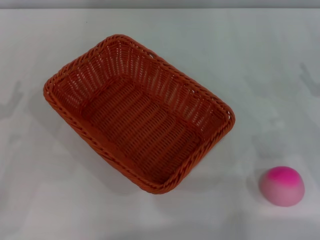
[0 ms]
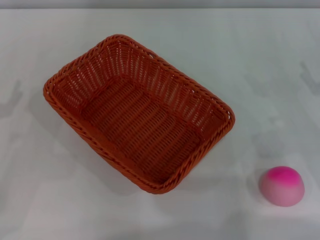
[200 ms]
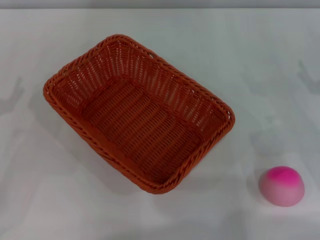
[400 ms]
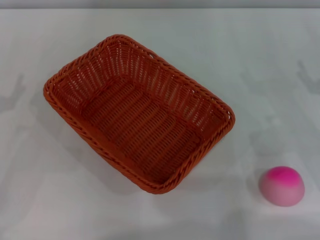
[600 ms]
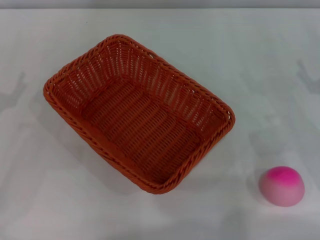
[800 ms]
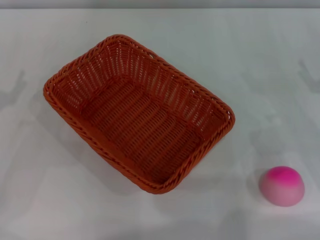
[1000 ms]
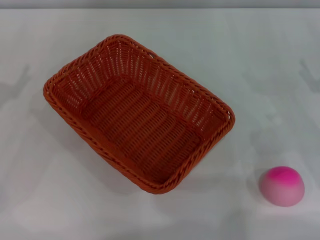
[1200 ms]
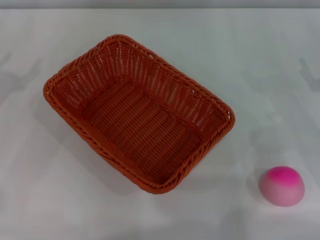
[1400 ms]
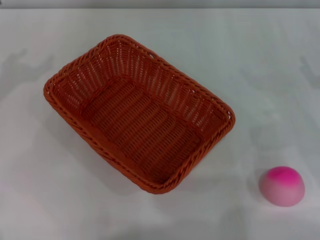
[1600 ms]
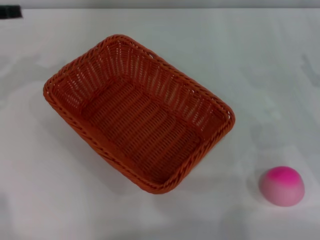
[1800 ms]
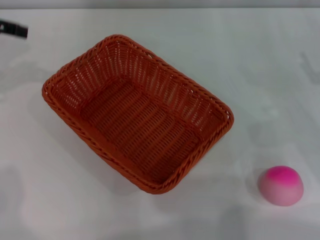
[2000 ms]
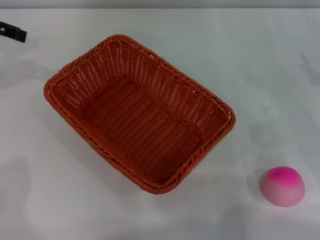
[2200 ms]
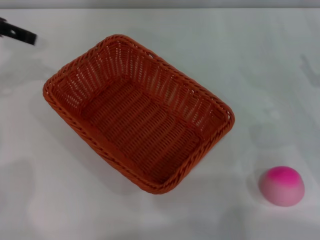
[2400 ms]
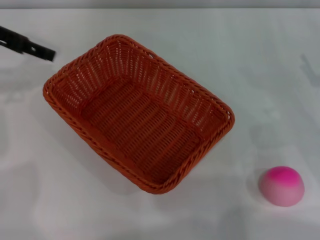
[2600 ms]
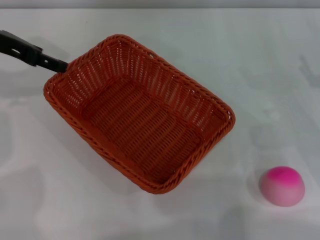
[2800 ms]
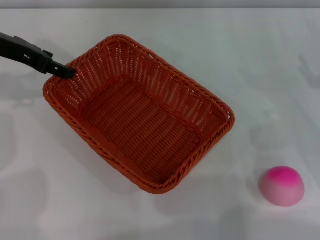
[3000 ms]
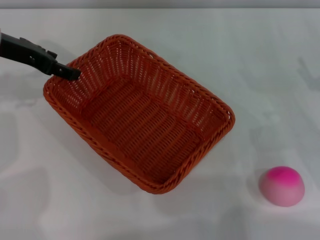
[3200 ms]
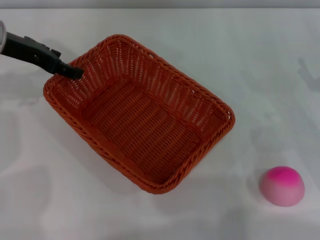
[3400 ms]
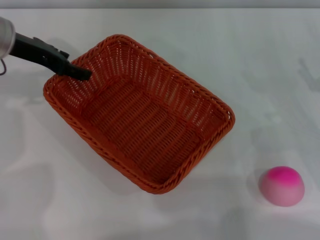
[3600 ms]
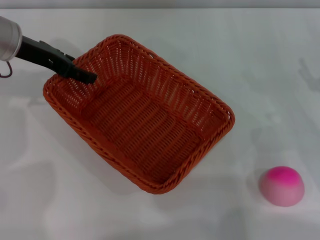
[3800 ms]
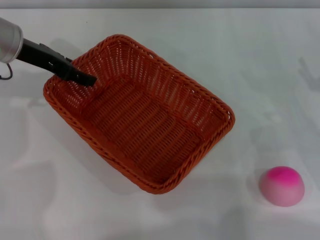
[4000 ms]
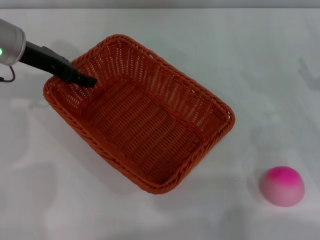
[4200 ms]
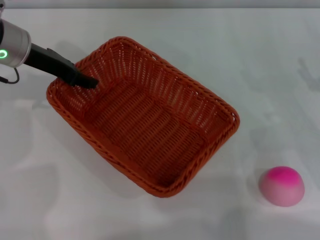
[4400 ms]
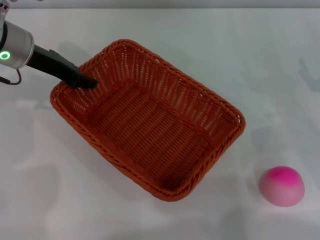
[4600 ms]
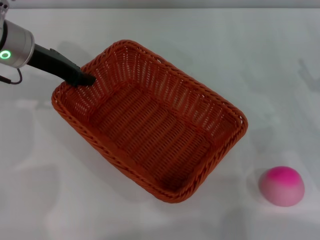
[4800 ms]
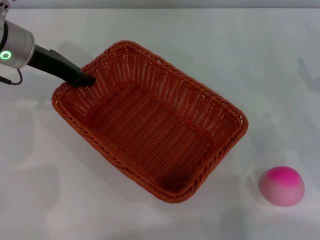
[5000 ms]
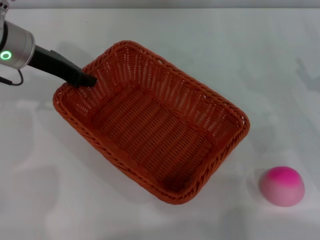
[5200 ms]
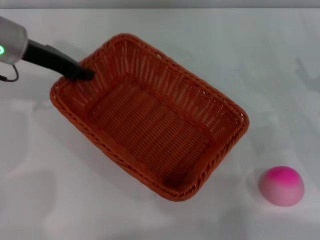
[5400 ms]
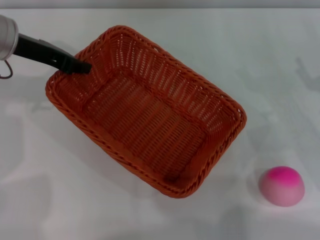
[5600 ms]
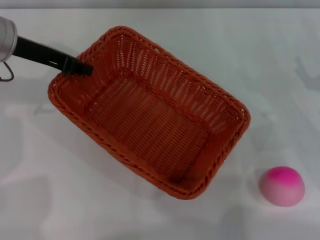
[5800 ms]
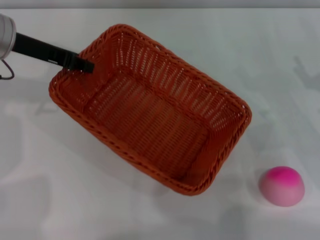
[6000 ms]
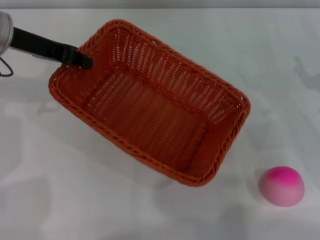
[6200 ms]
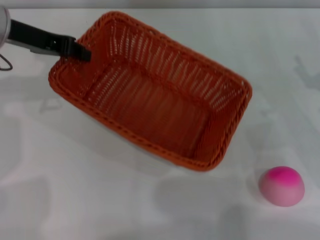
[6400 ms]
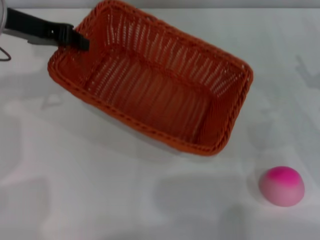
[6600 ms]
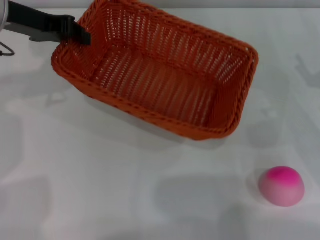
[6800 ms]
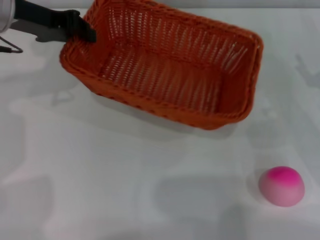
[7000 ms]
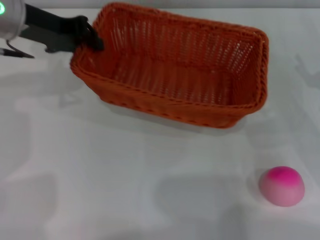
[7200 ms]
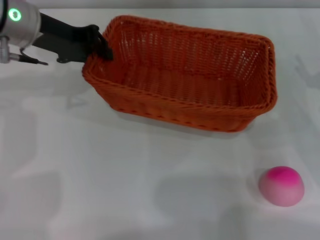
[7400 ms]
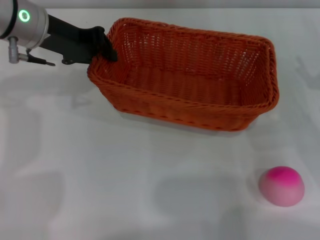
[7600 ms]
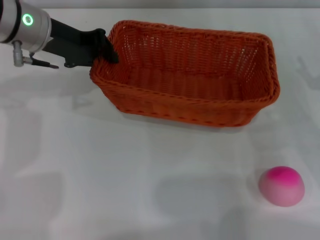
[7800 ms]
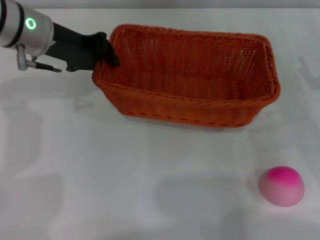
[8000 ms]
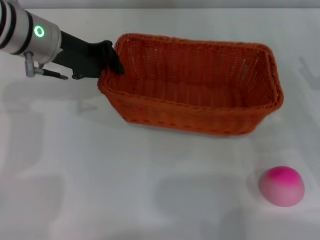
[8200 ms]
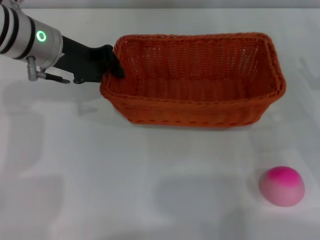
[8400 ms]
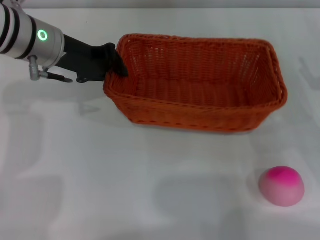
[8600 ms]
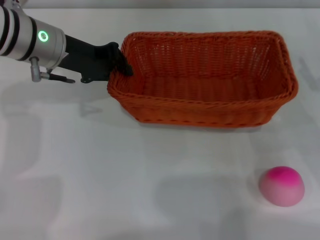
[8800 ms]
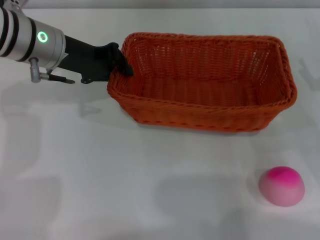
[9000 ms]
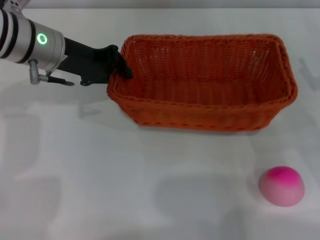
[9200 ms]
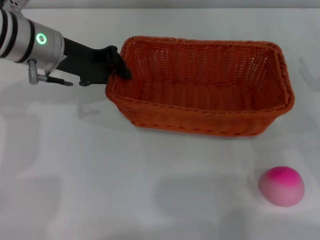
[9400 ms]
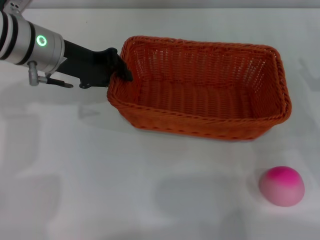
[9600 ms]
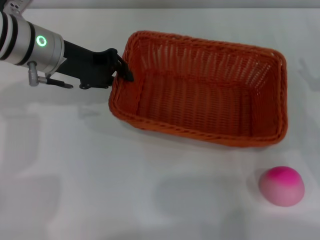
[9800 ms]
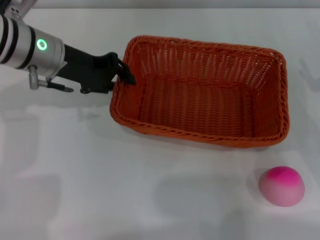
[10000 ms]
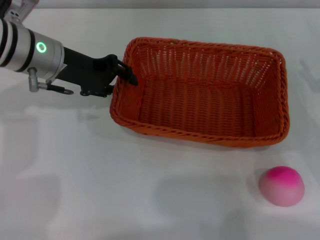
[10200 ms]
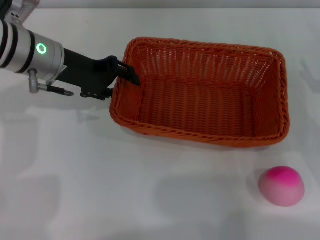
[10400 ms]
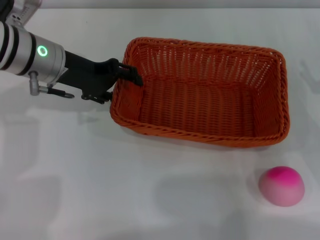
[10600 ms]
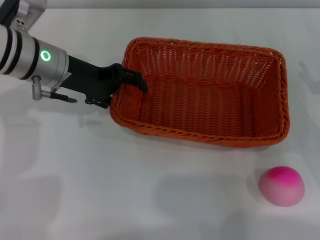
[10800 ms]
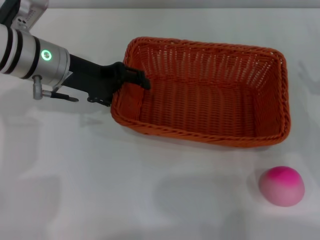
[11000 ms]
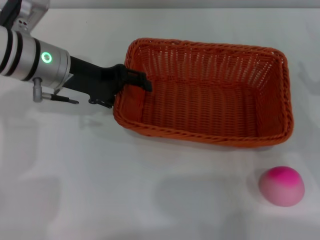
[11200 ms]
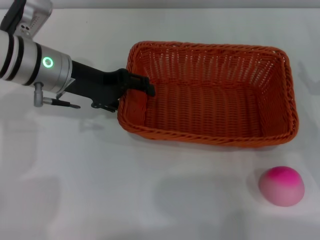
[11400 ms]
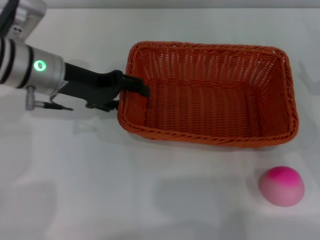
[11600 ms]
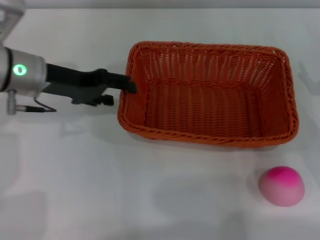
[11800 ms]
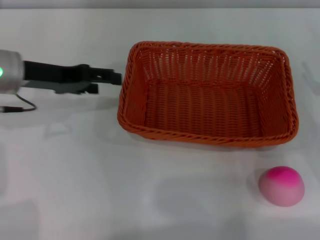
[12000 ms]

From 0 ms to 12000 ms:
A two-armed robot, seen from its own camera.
Step, from 0 ms to 6000 ms: Pick up the light basket with the left gripper.
From 1600 ms to 3000 ms: The left gripper goes approximately 10 cm to the right and forward.
From 3000 ms to 4400 ms: The grippers move only a little.
From 4400 ms to 6000 ms: The left gripper closes its fingers.
From 7600 ms to 10400 ms: There are only small adjustments of the grippers.
From 10400 ms to 12000 ms: The left gripper is displaced to the left by roughly 5 cm, and opens.

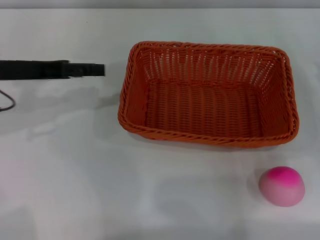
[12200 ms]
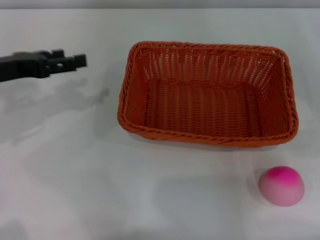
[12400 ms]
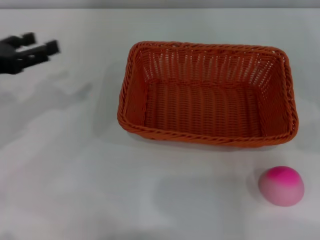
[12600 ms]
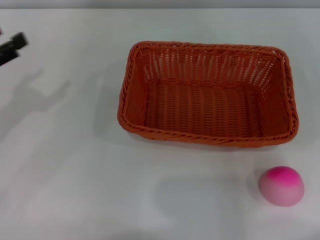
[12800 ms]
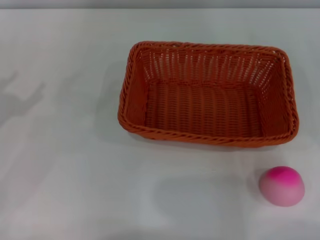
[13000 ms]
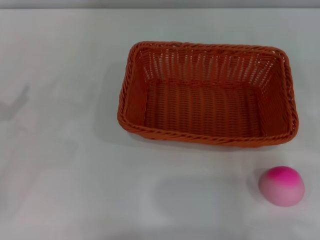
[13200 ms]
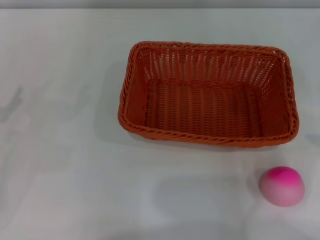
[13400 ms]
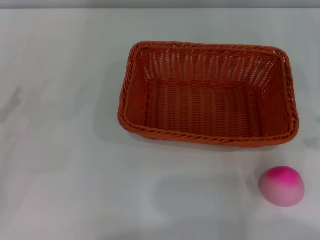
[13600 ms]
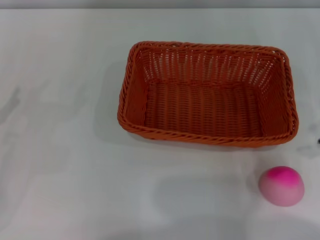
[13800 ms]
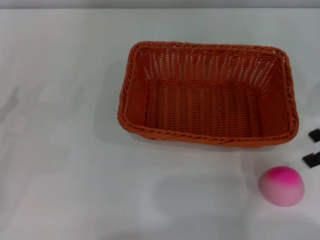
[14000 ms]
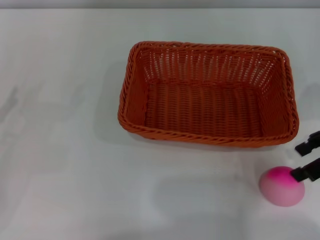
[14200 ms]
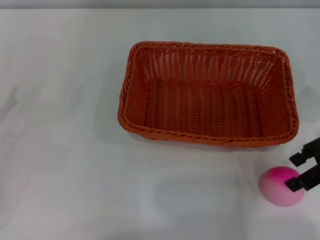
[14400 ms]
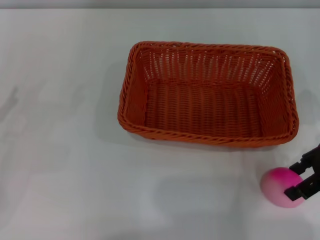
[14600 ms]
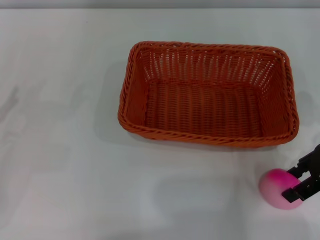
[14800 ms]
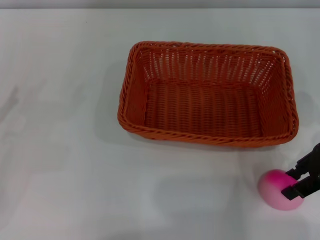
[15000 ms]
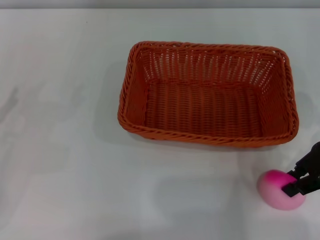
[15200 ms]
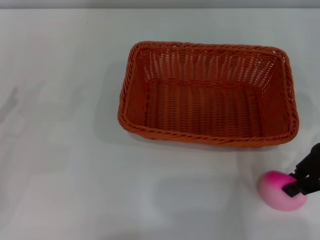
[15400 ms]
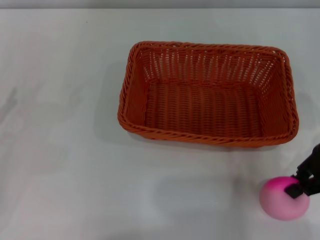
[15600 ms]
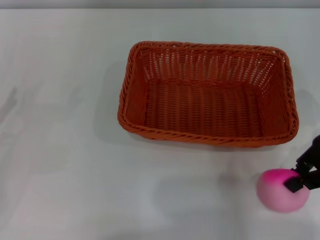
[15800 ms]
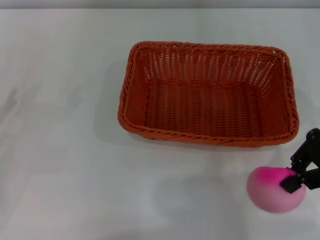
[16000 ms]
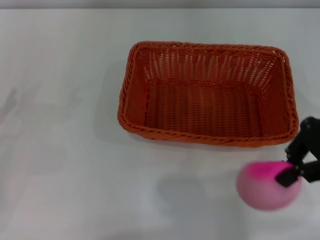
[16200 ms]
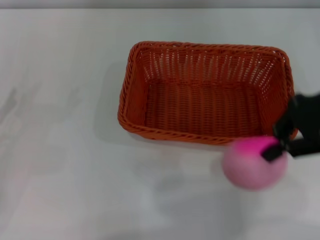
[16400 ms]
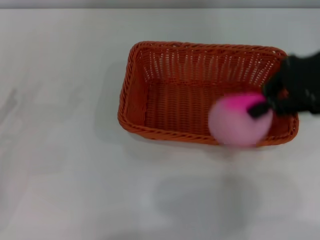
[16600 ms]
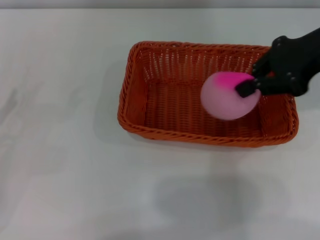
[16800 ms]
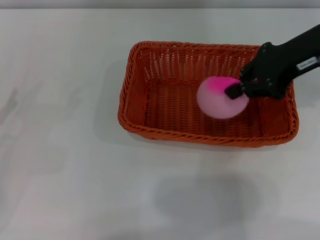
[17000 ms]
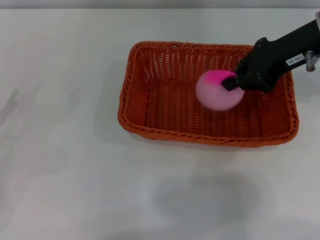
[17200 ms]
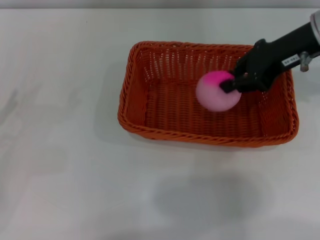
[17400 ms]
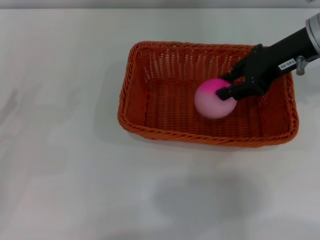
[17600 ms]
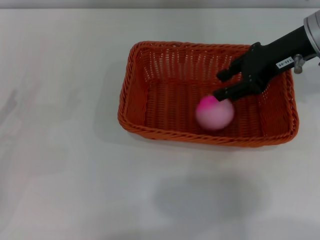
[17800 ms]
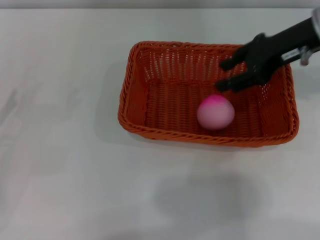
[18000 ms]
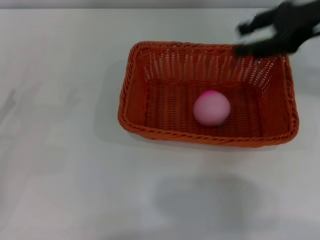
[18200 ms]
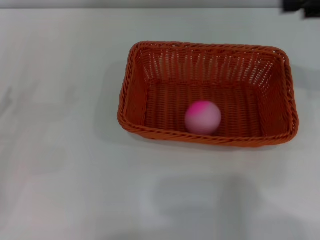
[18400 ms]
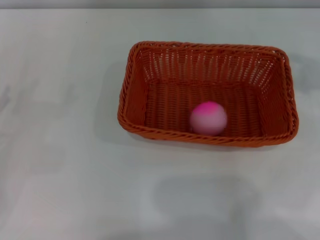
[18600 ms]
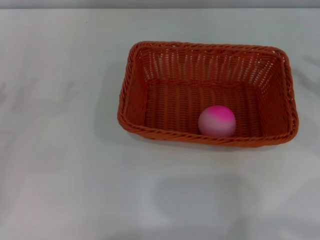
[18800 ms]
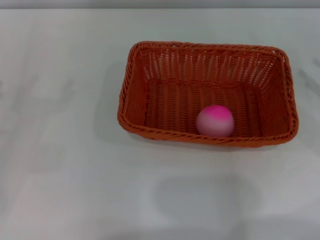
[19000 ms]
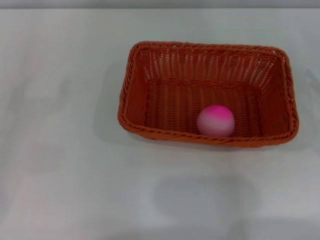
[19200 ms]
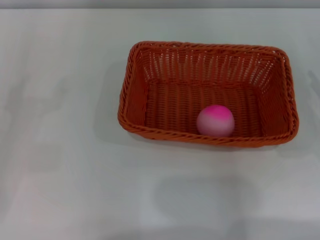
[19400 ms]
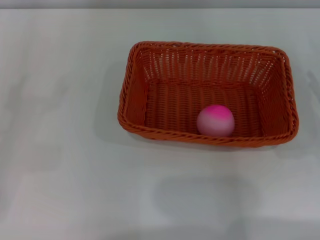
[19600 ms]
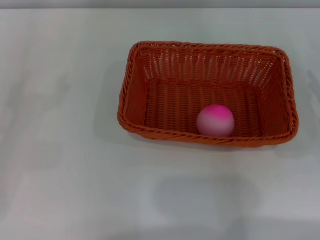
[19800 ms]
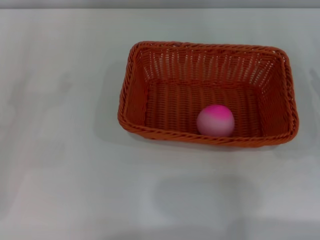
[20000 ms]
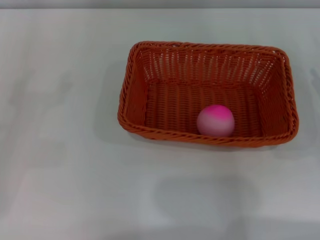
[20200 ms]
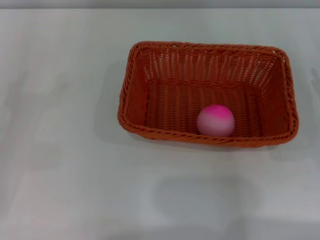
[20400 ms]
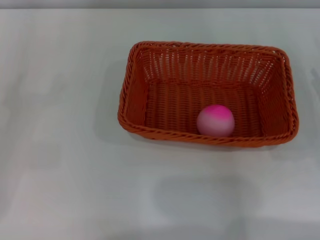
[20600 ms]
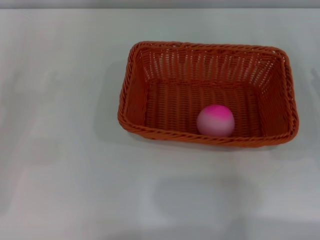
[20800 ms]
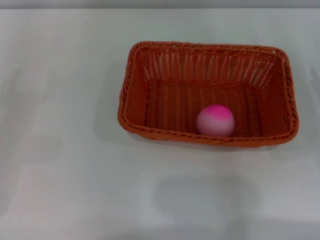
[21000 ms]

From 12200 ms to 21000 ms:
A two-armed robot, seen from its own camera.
Step, from 12200 ms to 16600 ms: Pick up the peach with the left gripper.
From 12200 ms to 13600 ms: The left gripper goes about 15 cm to the left, backward and downward.
From 13600 ms to 15200 ms: The right gripper travels to the left and downward by about 10 cm.
From 15200 ms to 16600 ms: The right gripper is displaced upward by roughly 10 cm, and closes up.
From 16600 ms to 18000 ms: The right gripper ends up roughly 5 cm from where it was, and opens its fingers.
From 18000 ms to 19600 ms: The right gripper moves downward, to the right and backward, roughly 25 cm.

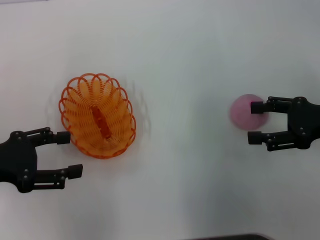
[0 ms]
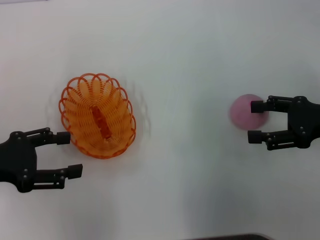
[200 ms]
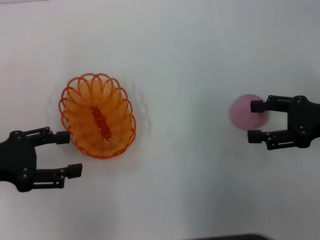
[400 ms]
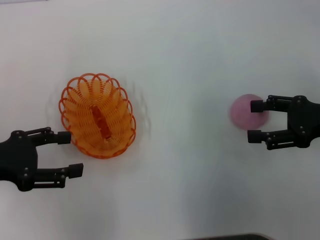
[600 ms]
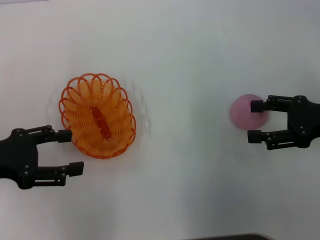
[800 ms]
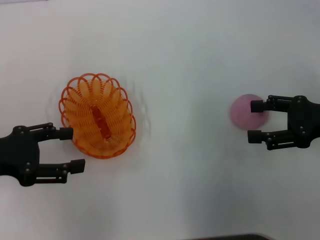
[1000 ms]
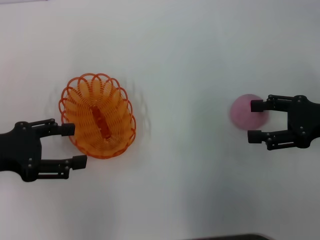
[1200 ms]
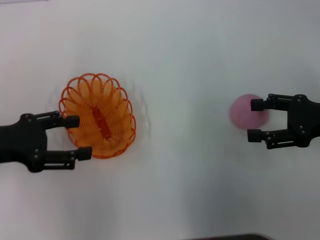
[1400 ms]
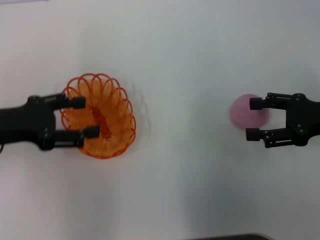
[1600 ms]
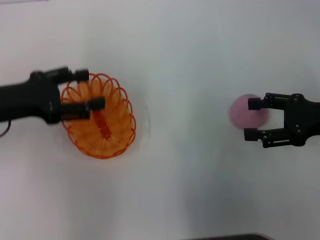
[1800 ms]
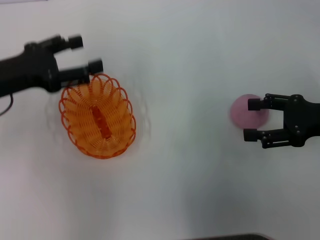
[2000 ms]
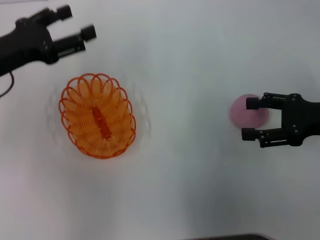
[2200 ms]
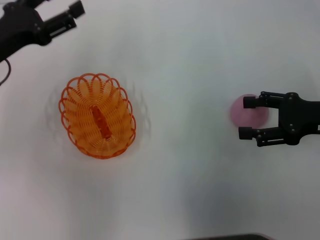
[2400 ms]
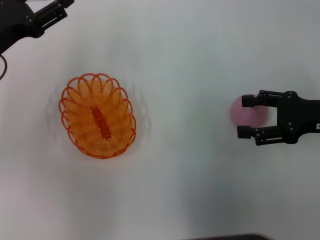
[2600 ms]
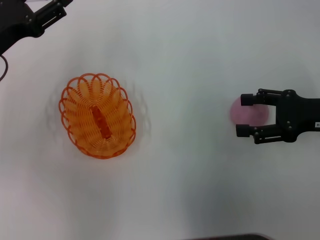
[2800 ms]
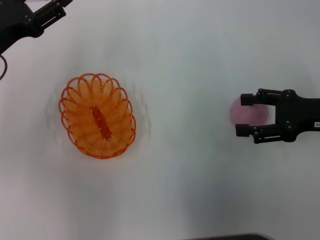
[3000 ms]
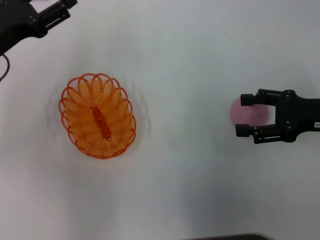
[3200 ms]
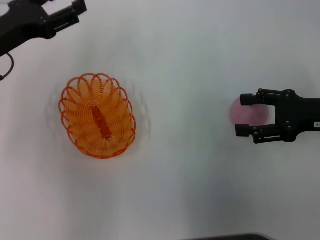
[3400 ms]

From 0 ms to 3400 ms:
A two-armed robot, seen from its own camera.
From 0 ms to 1600 ms: The grippers move only a little.
From 1600 ms to 3400 ms: The left gripper travels forward by some 5 cm.
